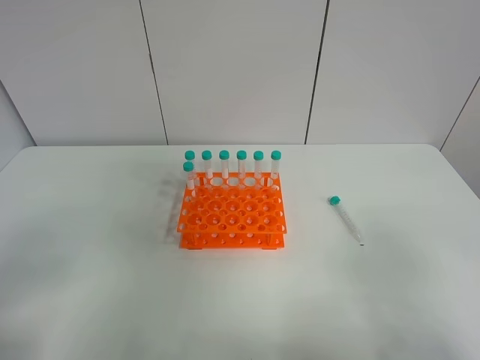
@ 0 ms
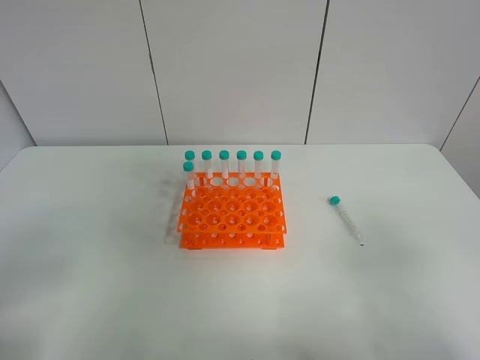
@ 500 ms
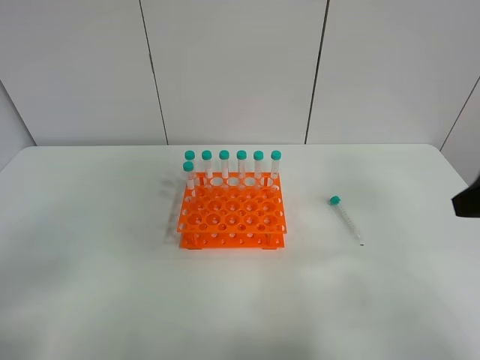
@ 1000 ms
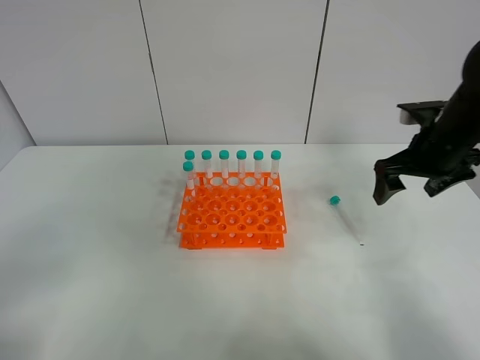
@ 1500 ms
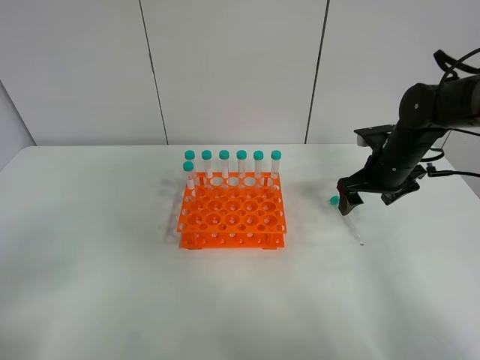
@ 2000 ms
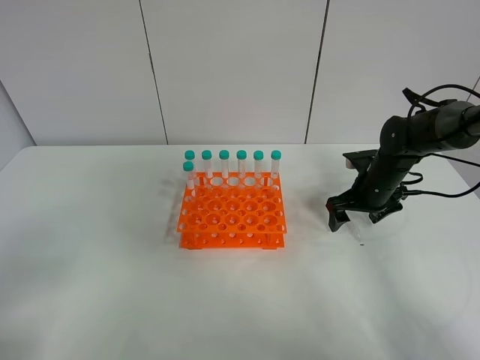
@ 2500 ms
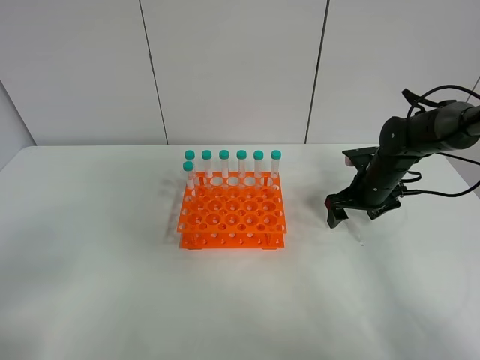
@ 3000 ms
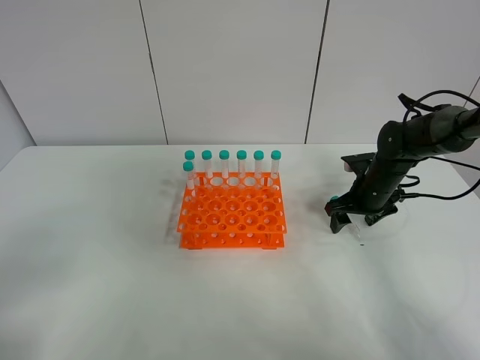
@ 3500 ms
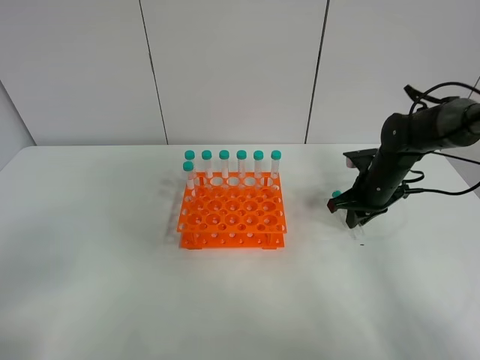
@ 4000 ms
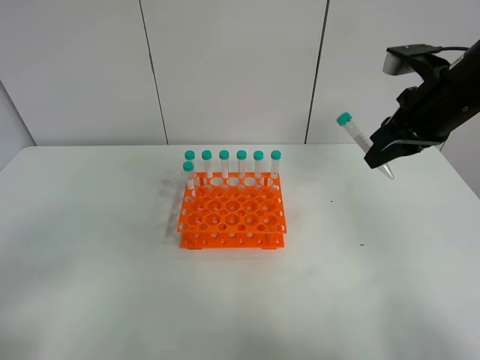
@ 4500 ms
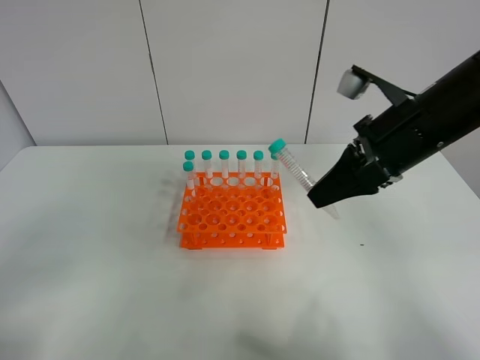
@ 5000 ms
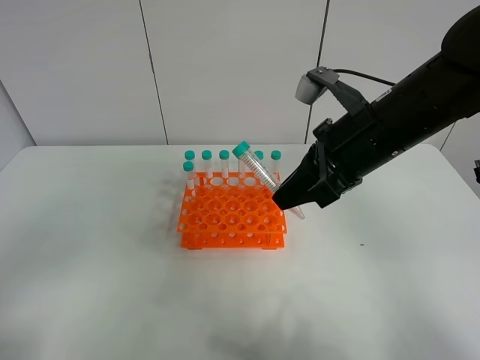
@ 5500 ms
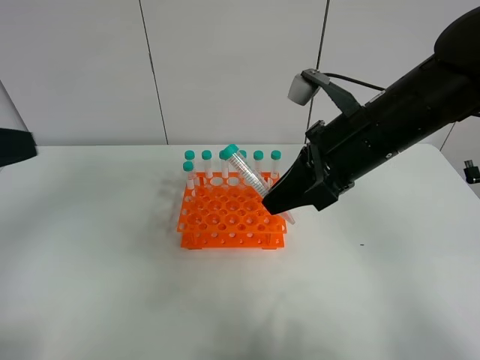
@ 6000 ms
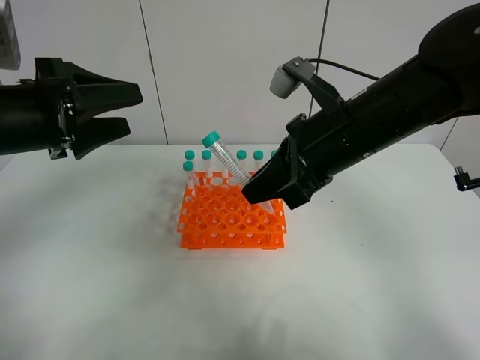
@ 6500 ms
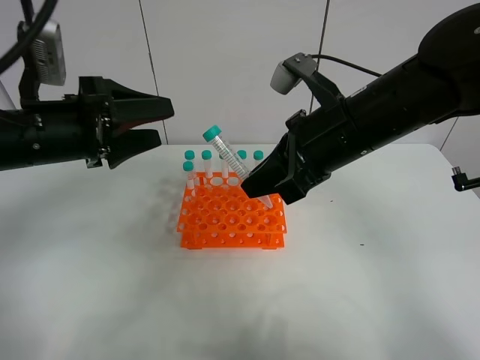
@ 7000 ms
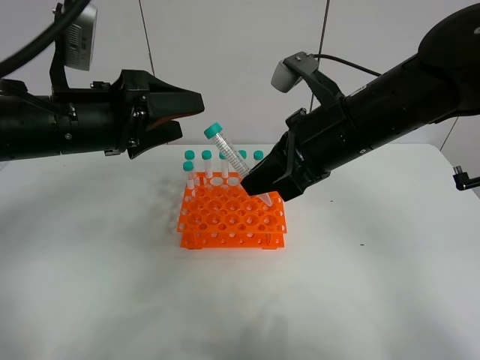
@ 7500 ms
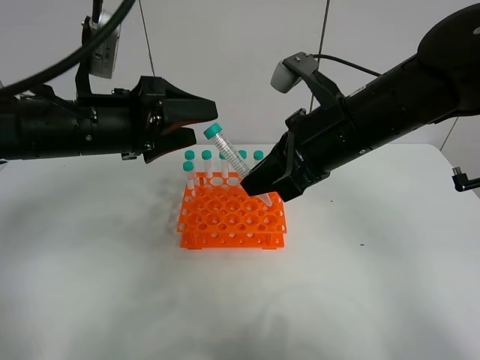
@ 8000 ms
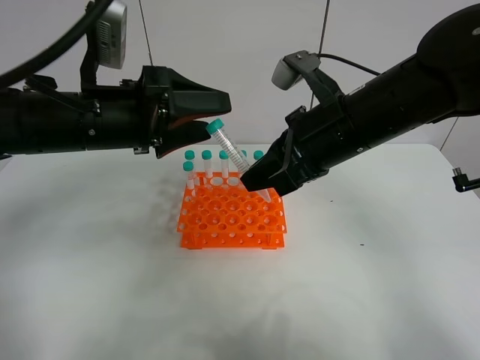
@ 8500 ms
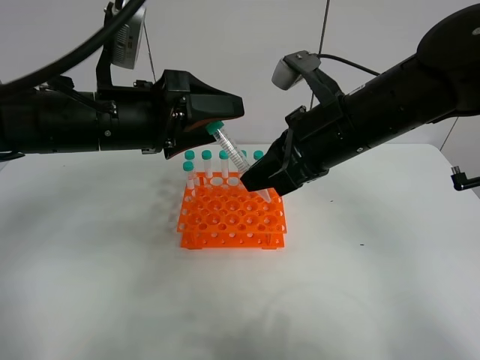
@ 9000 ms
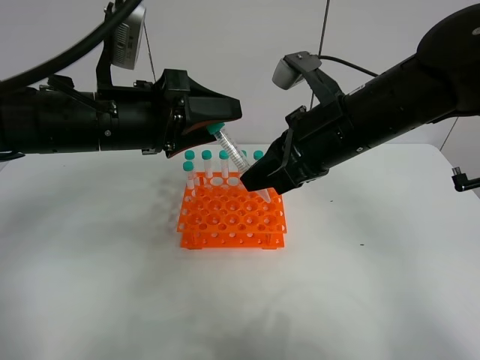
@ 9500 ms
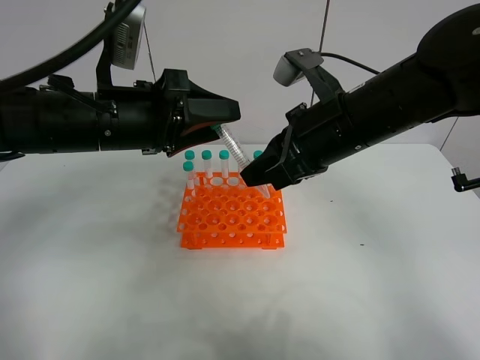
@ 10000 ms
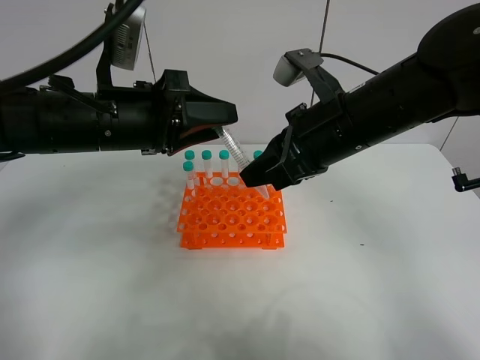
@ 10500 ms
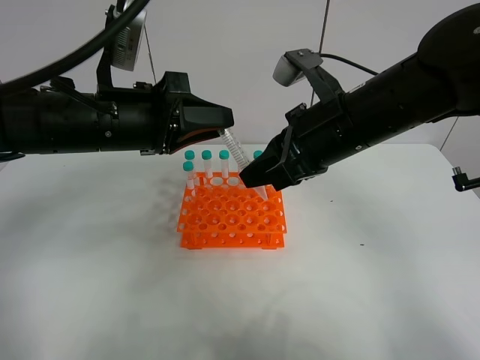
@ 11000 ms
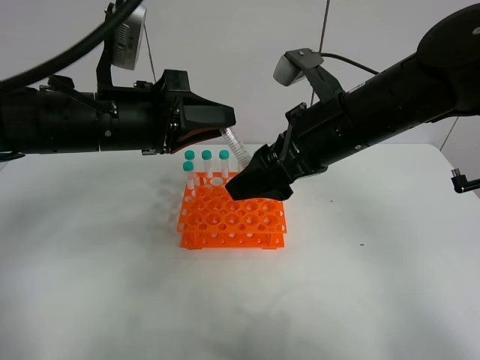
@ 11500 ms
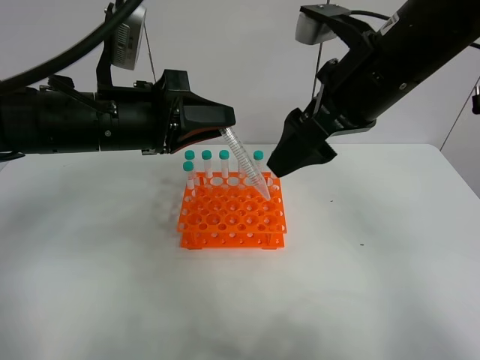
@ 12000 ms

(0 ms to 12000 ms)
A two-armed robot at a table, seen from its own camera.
Task of the whole recording: Put the test tube on the table back onto the test tube rack.
Step, 0 ms - 4000 ms: Pick up the test tube with the right gripper.
0 ms - 2000 ms: The right gripper heads forward, covering about 40 cm.
2000 ms - 4000 ms: The right gripper closes up.
4000 ms - 6000 ms: The left gripper is displaced forward and upward by roughly 15 cm. Meanwhile the right gripper shifts roughly 25 cm upward, backward and to the left.
6000 ms - 8000 ms: The left gripper shifts some 20 cm forward, to the right and downward.
8000 ms - 10000 ms: The left gripper closes.
10000 ms - 12000 ms: The left gripper closes. Meanwhile the right gripper goes some 5 cm upward, and opens its fingers.

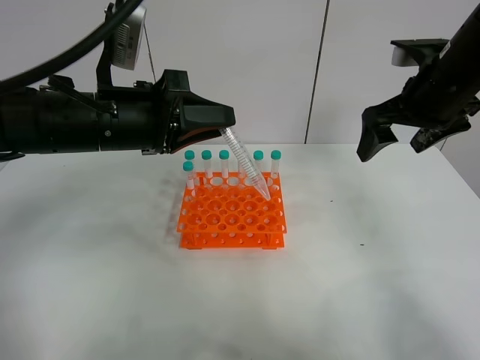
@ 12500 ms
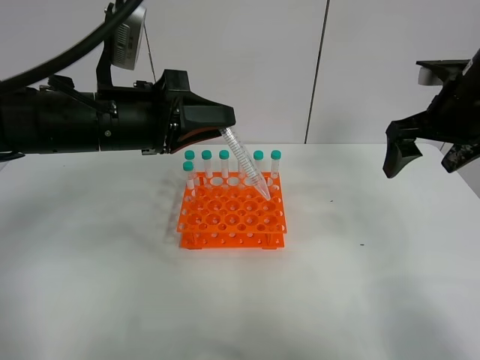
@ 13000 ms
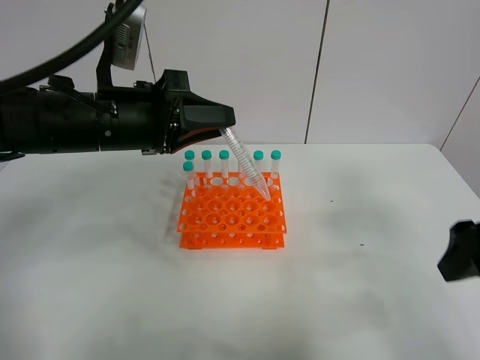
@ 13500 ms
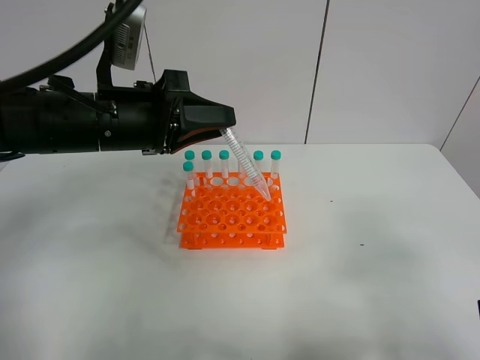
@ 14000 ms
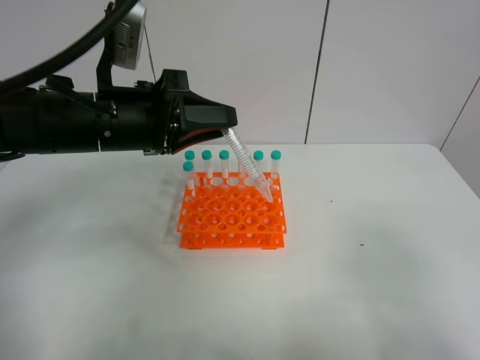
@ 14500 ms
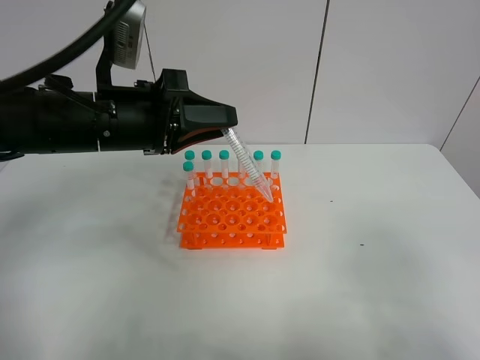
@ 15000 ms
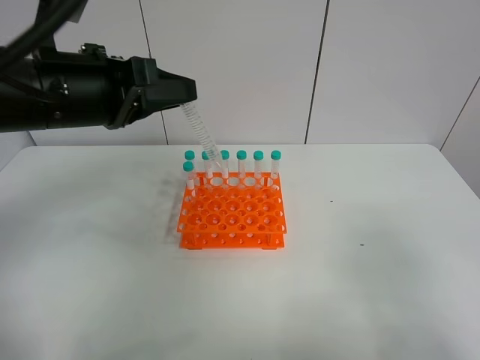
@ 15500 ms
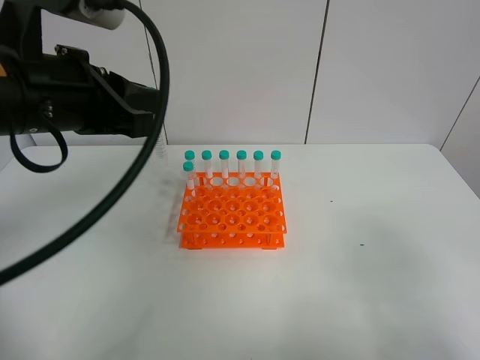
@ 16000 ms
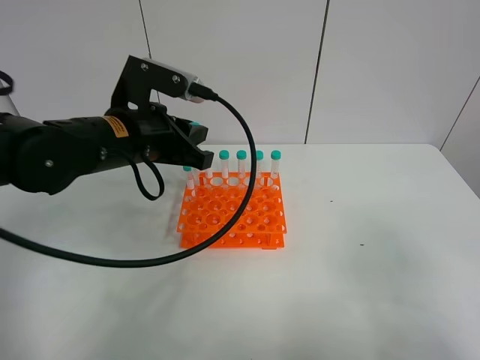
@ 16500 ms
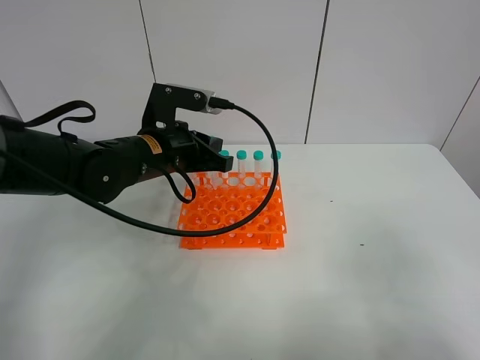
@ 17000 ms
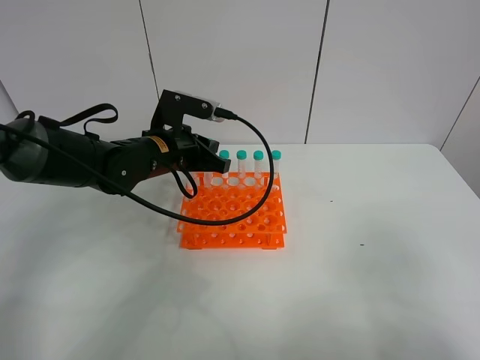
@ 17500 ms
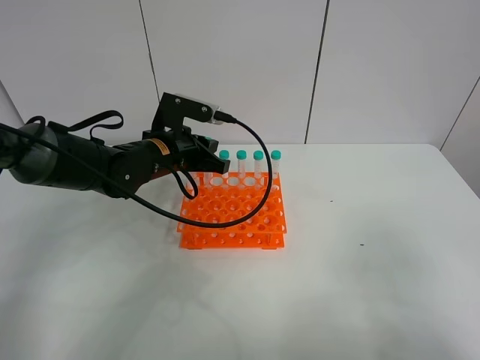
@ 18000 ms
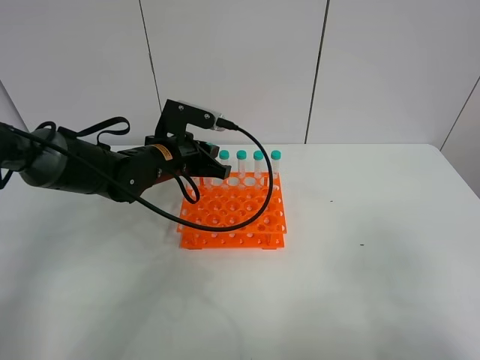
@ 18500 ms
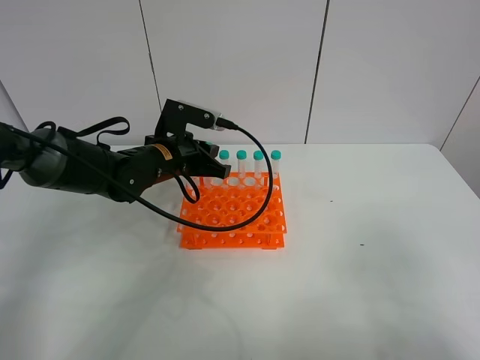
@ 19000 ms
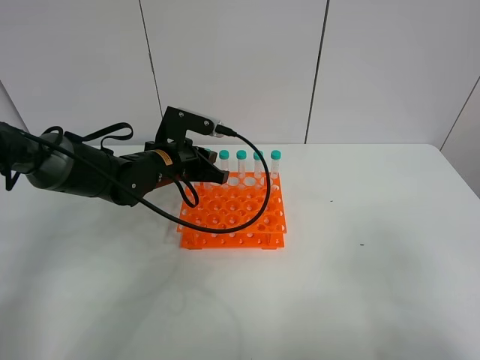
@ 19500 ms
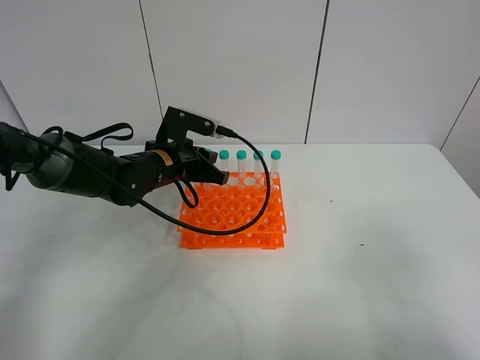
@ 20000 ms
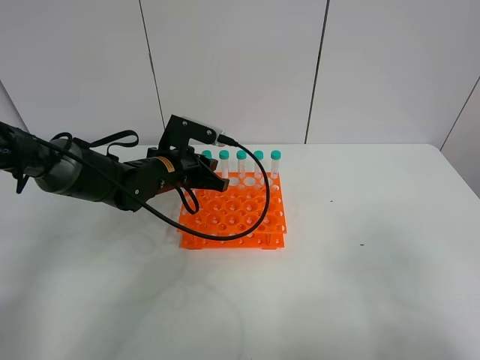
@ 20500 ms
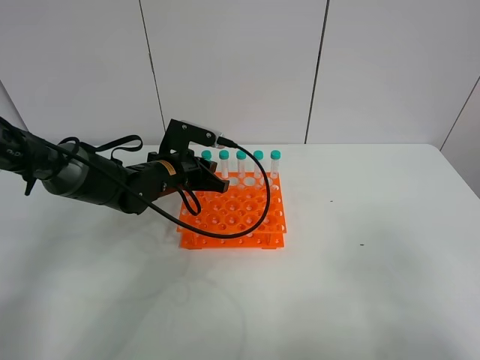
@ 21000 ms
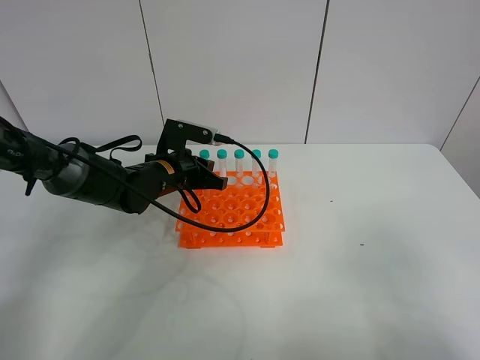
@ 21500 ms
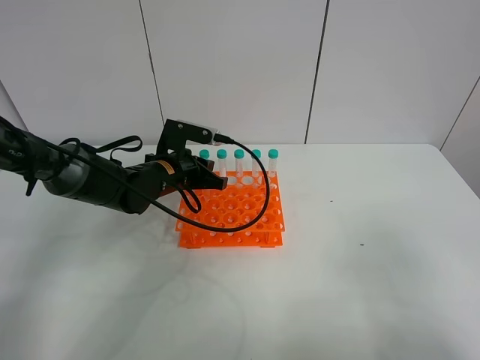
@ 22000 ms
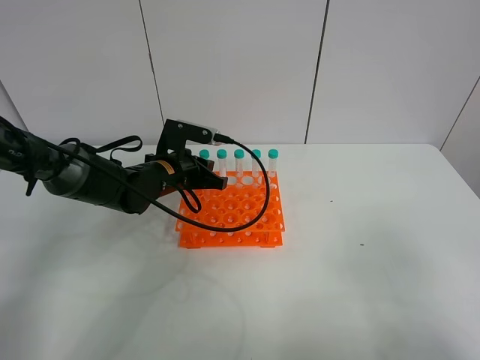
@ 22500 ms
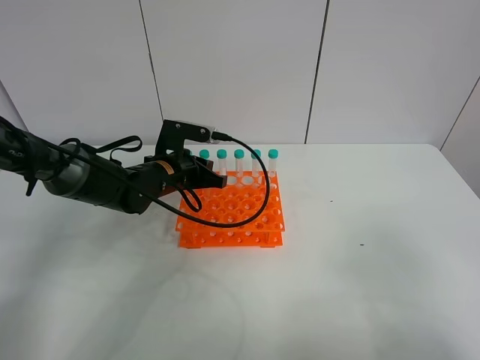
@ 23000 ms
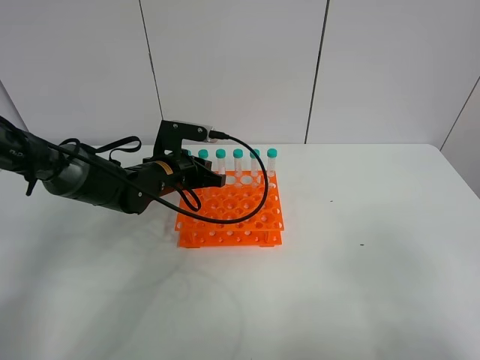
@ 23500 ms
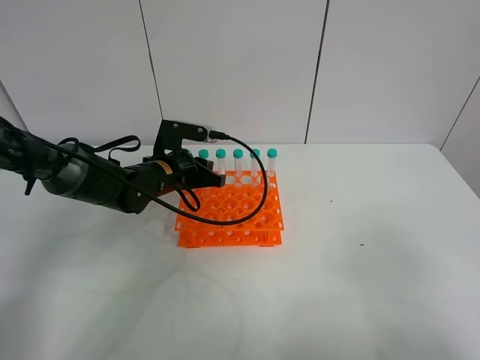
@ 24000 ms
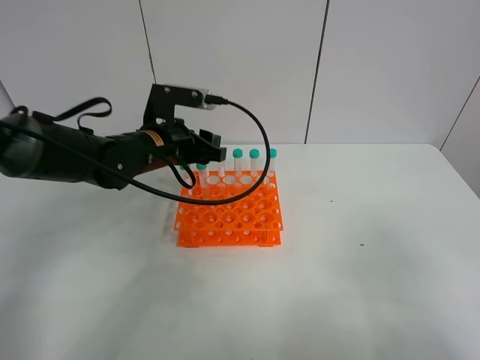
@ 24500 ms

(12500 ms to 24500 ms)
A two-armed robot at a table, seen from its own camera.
Task of the whole recording: Put the test tube on the table back onto the test tube rack.
12500 ms - 14500 ms: The right gripper moves backward, some 35 cm.
14500 ms - 16500 ms: The left gripper moves about 5 cm upward and comes back.
16500 ms - 18500 ms: The left gripper travels downward and forward by roughly 10 cm.
18500 ms - 22500 ms: The grippers make only small movements.
22500 ms - 24500 ms: The left gripper heads upward, covering approximately 10 cm, and opens.

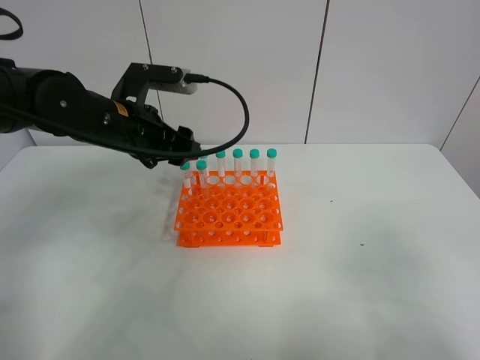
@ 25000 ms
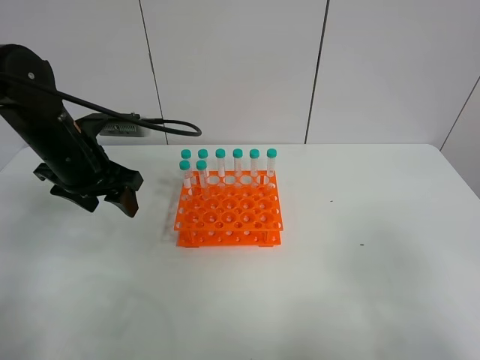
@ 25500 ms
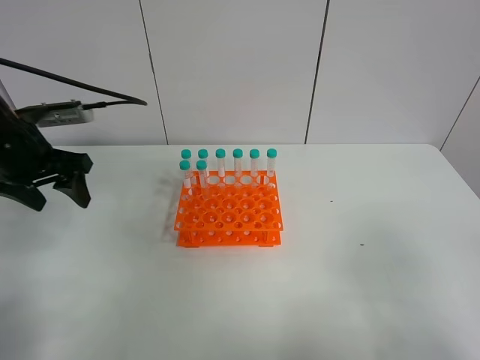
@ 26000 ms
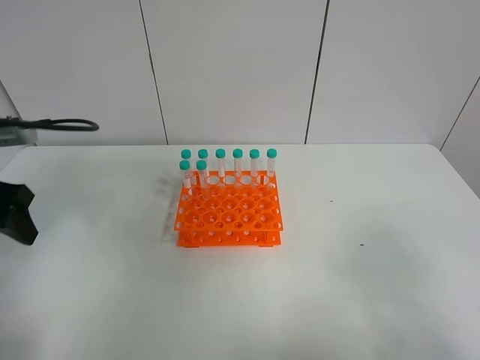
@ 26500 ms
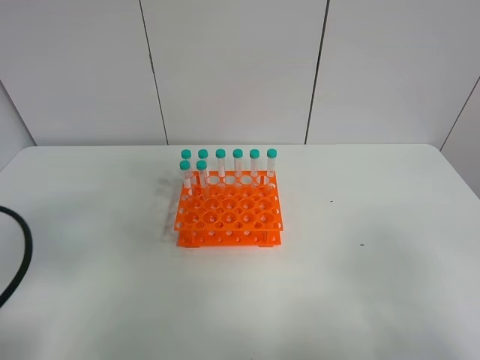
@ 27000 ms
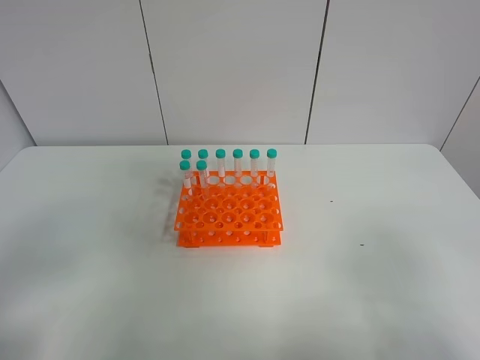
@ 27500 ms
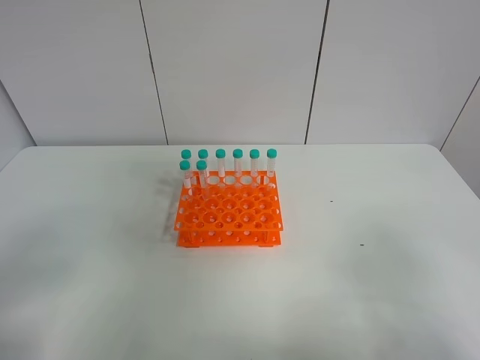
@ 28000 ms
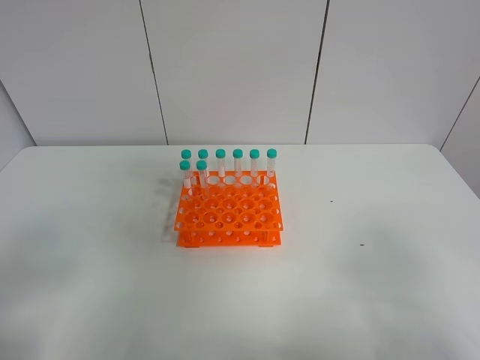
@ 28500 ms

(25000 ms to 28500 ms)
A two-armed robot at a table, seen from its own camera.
Task of the whole recording: Put the test tube on the table back onto the test tube rack.
25000 ms - 27000 ms: The left gripper goes approximately 30 cm backward and to the left.
